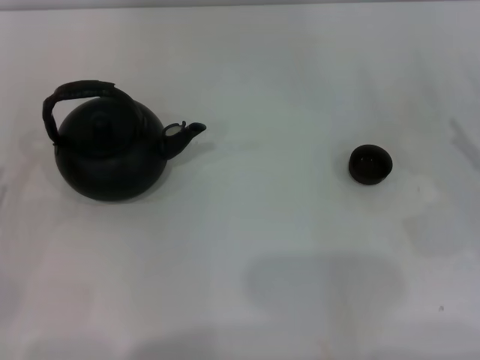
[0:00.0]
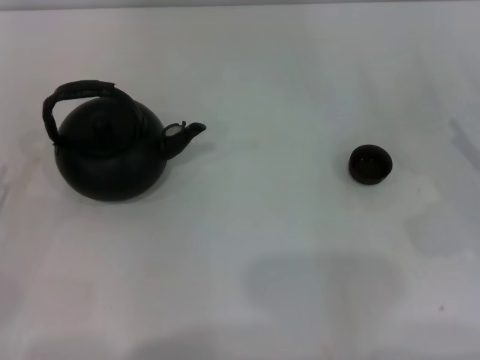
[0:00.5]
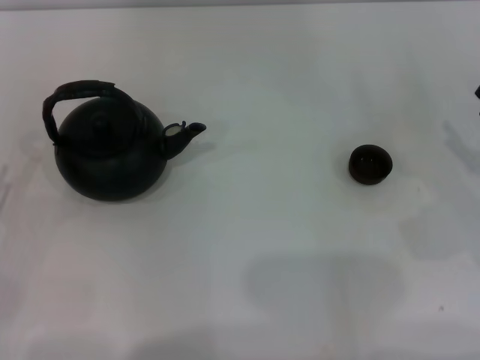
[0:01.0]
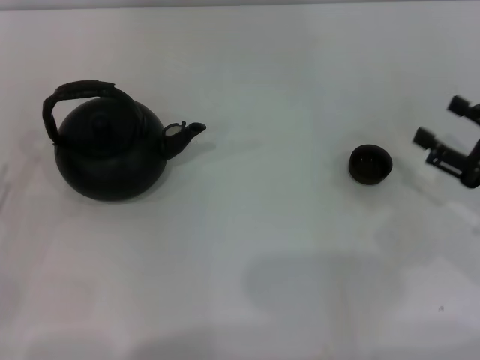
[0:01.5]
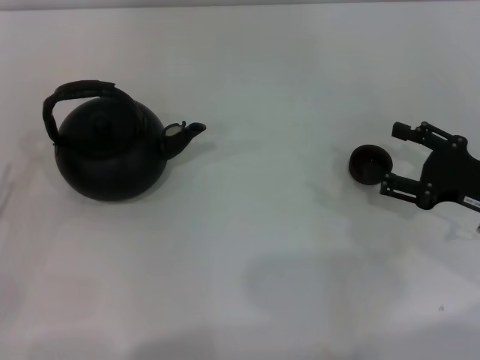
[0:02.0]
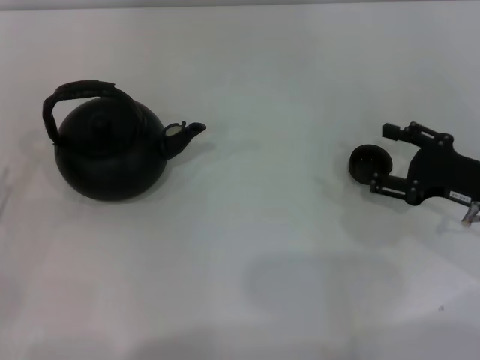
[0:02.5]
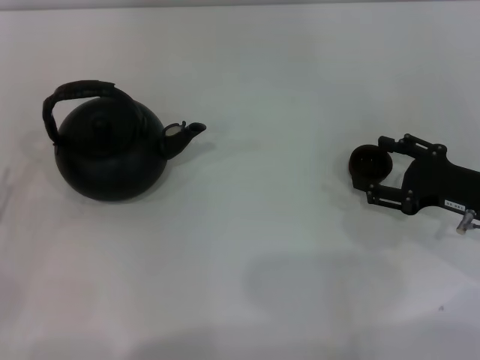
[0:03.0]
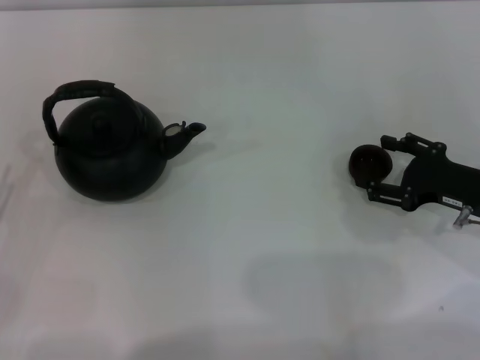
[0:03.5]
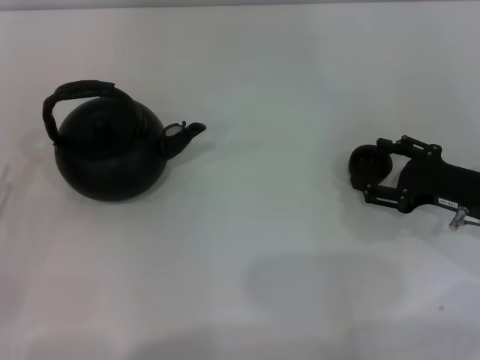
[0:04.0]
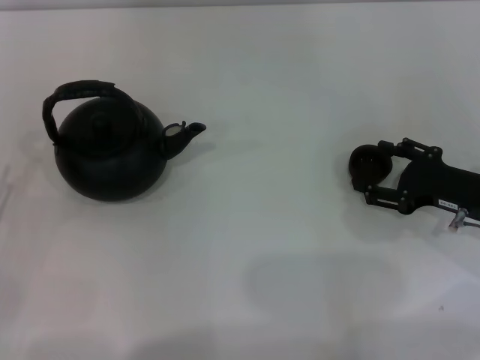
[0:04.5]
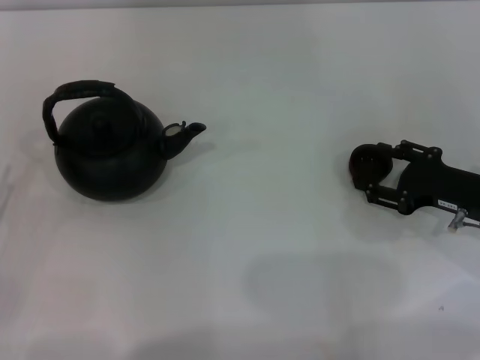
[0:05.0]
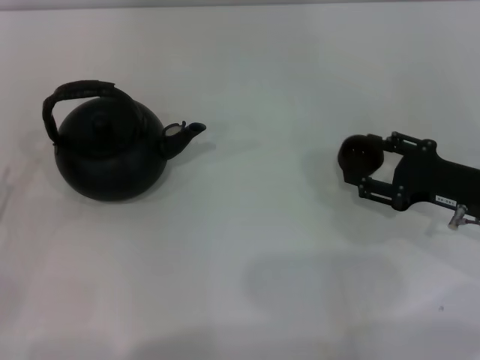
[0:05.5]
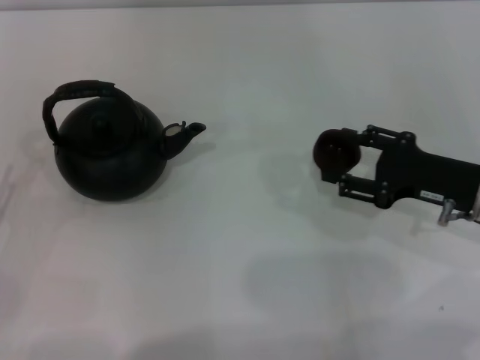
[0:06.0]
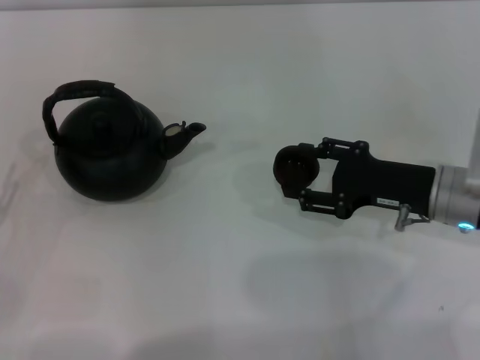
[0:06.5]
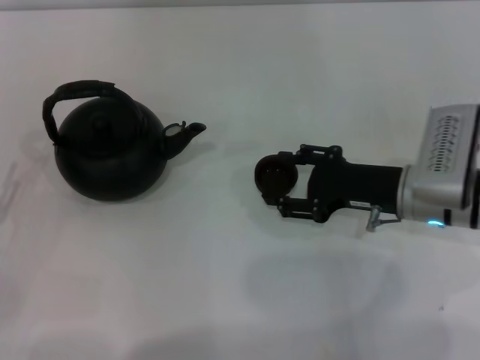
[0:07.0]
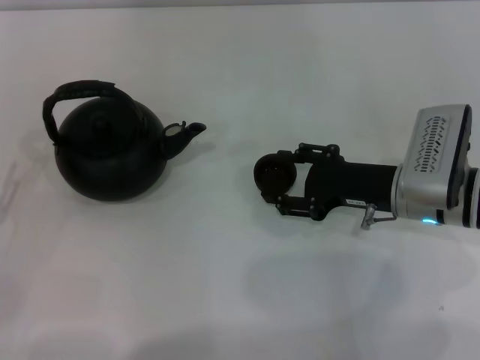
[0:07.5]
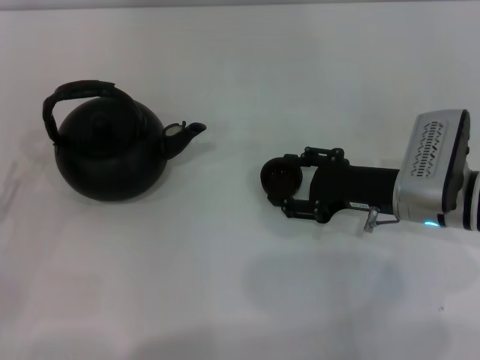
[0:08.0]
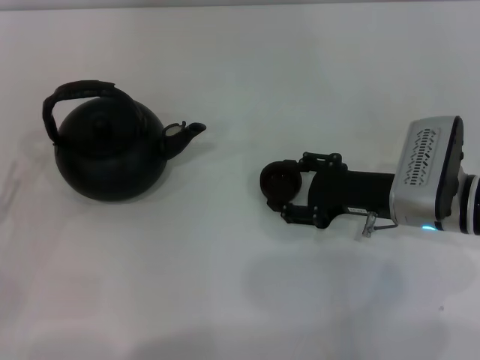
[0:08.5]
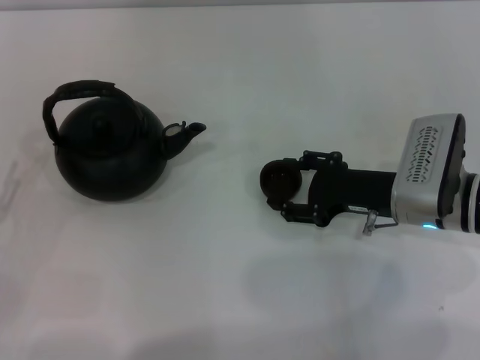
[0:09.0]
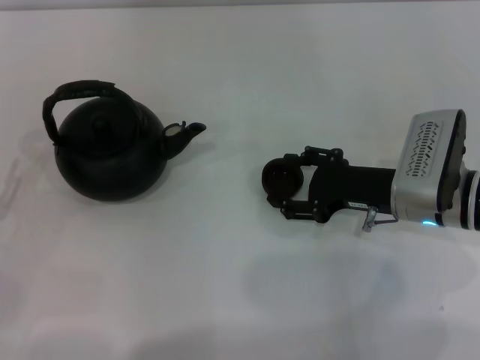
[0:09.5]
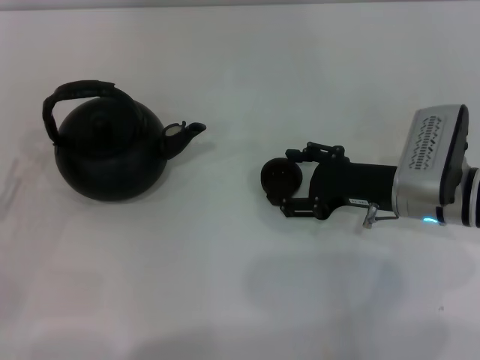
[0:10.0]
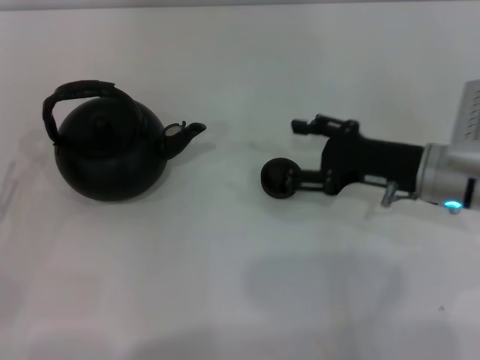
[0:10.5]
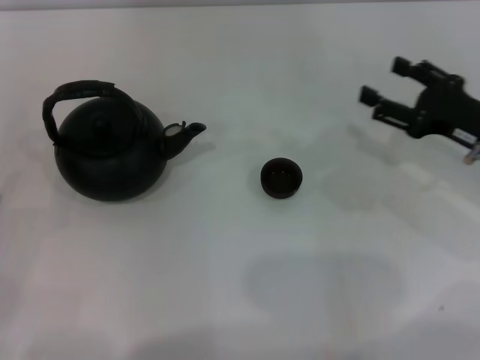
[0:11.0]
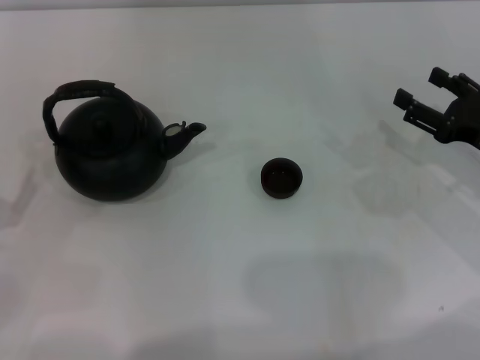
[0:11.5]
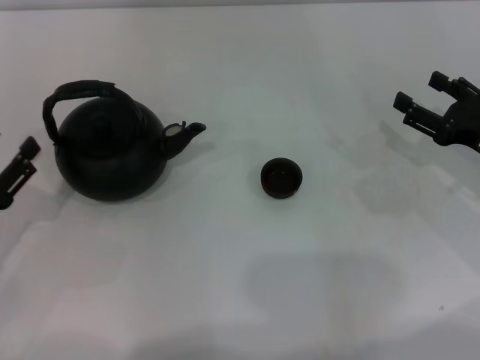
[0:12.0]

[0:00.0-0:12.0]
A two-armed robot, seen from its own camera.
Task of the whole recording: Grasp the handle of the teapot with one hand and pour tea into the teacup.
Step, 0:00.0 to 0:05.5: Pick up the teacup with the right gripper.
Step, 0:06.0 to 0:10.5: Place the teacup in the center of view with the right gripper.
0:00.0 to 0:02.0: The right gripper moves approximately 5 cm.
0:02.0 to 0:04.0: The grippers make only small movements.
0:04.0 to 0:06.0: The right gripper closes its fingers.
0:06.0 to 0:08.0: The right gripper is displaced to the left by approximately 5 cm.
0:08.0 to 0:10.0: The right gripper opens up.
0:10.0 to 0:12.0: The right gripper moves to the right, approximately 10 cm.

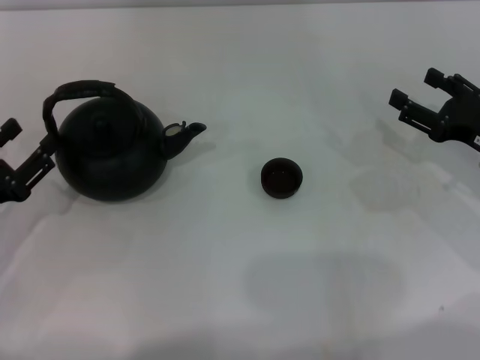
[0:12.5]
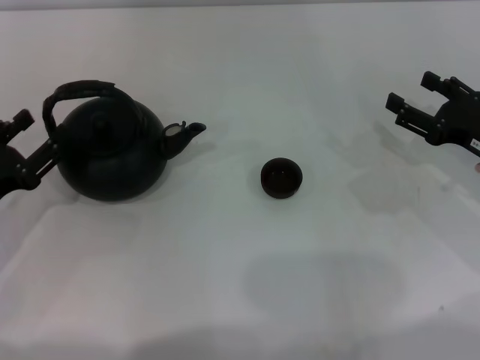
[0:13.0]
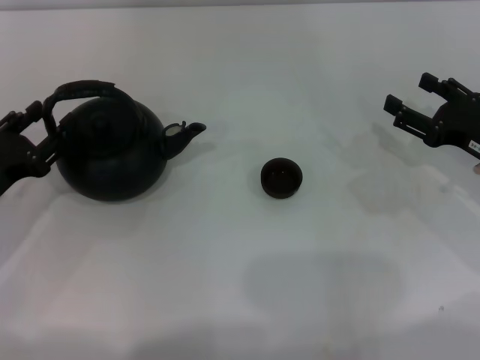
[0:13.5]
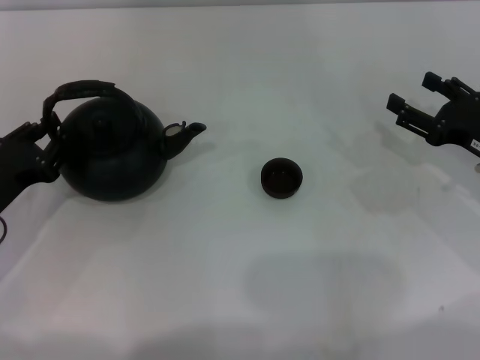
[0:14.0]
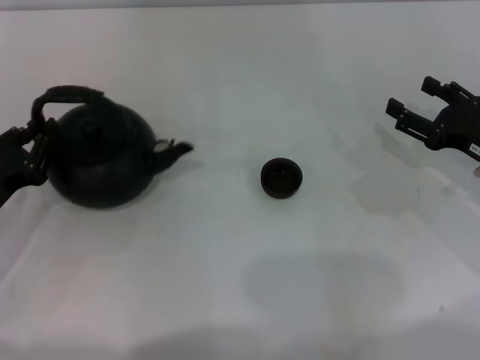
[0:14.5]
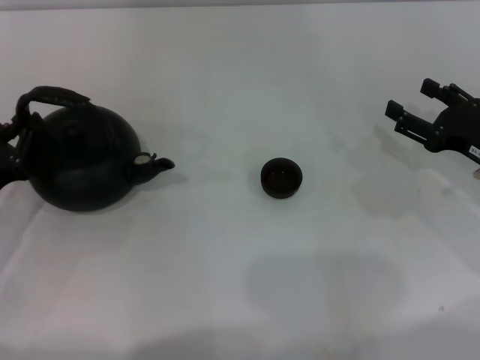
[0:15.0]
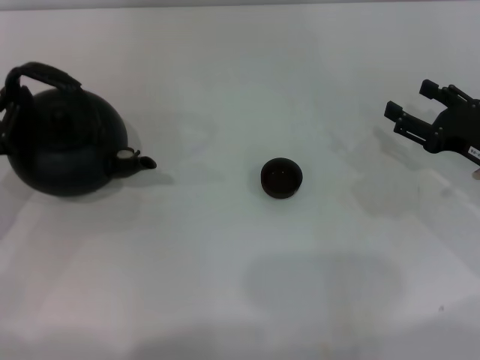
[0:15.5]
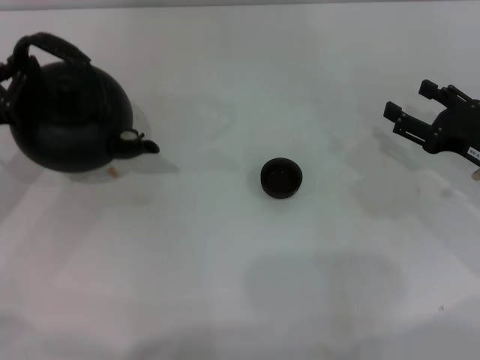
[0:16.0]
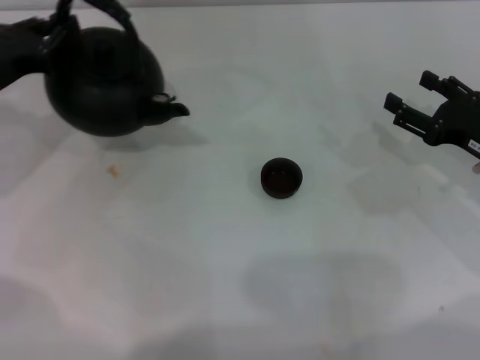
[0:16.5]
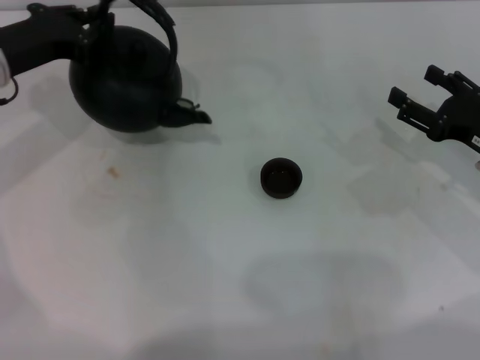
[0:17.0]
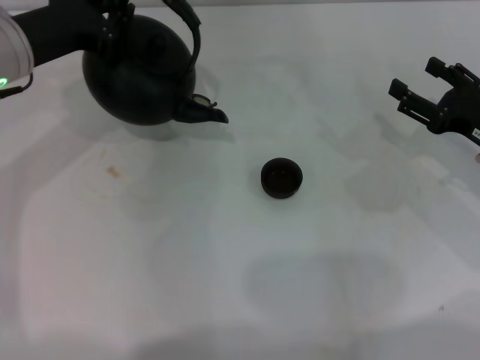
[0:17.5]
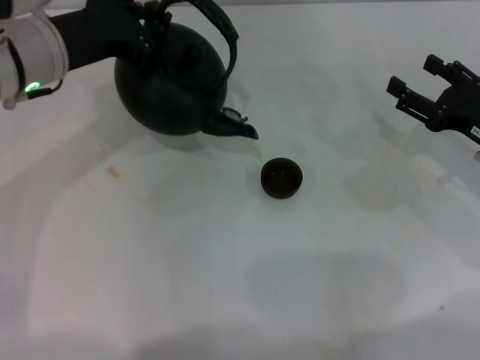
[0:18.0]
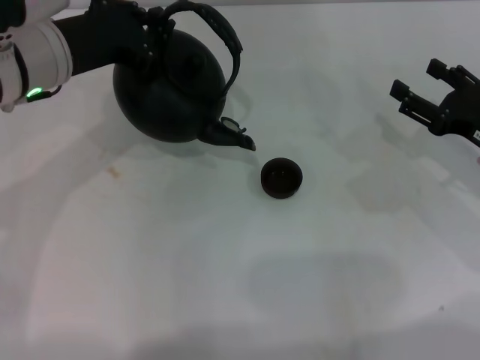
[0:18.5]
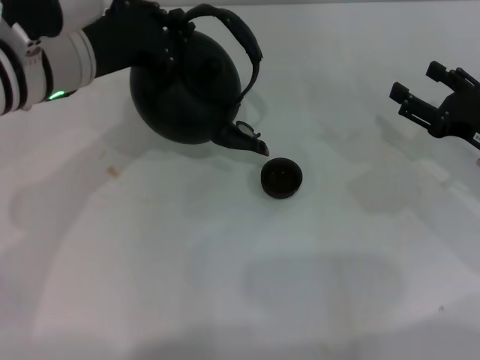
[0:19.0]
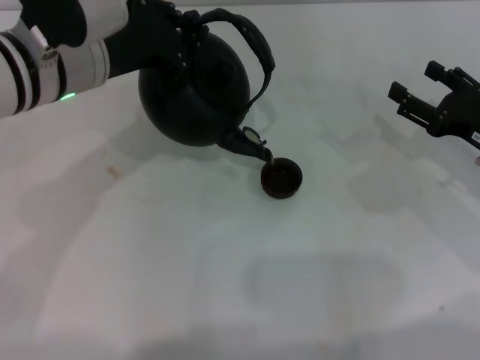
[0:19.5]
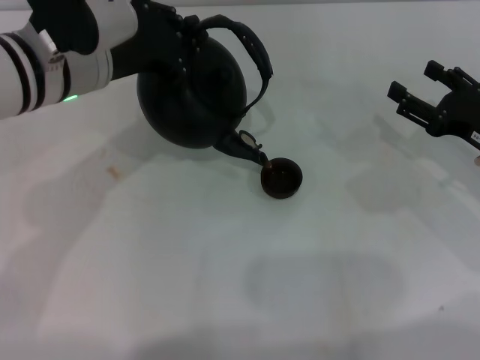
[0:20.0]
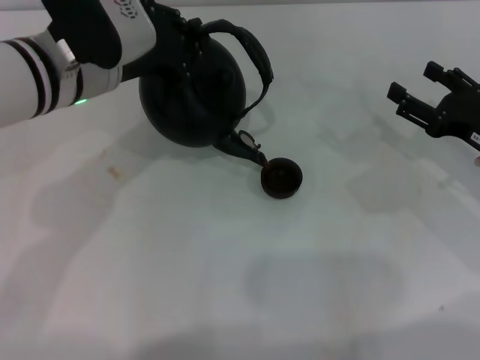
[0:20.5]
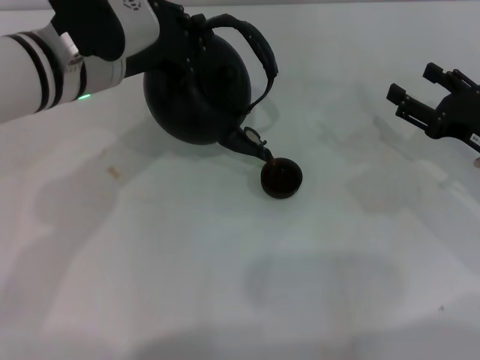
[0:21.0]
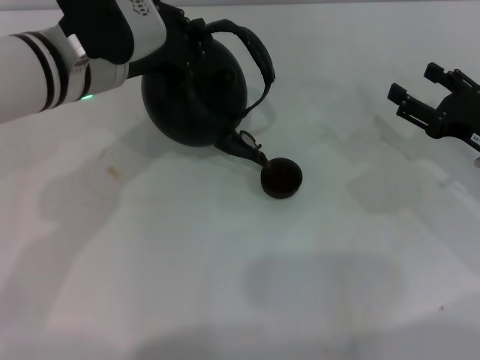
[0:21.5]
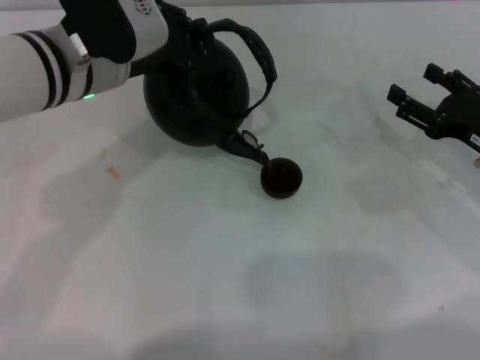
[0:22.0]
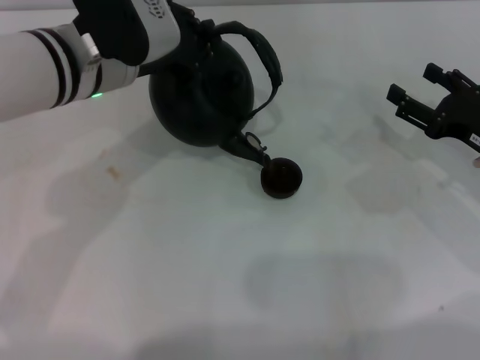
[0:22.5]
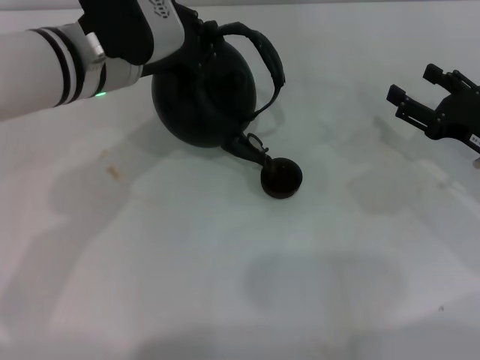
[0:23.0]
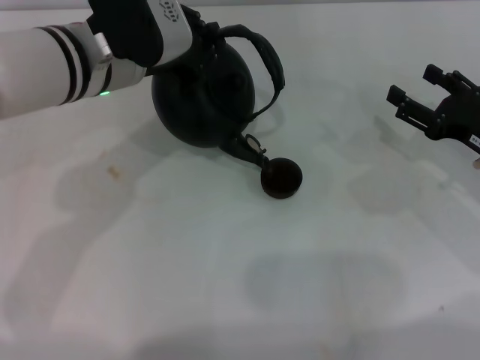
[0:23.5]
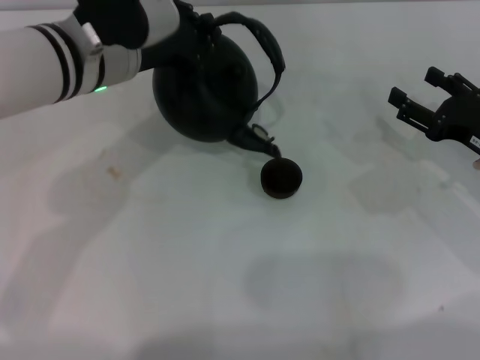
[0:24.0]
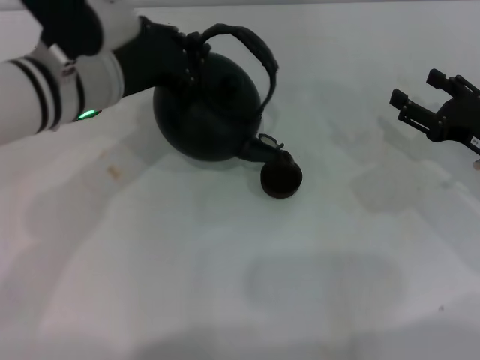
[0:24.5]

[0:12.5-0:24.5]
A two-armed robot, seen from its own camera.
Task of the whole recording: Grasp the handle of the teapot with one hand and pour tea into the teacup.
Step, 0:12.5 to 0:15.5: Pick up the teapot with the left gripper.
Step, 0:16.0 to 0:24.0: Pour tea into the teacup with the left gripper.
0:12.5 to 0:14.5: The left gripper closes up.
0:14.5 to 0:16.5: The left gripper shifts some 15 cm forward and upward.
0:16.5 to 0:18.5: The left gripper moves to the right and upward, approximately 10 cm.
0:18.5 to 0:20.5: The grippers move only a little.
0:20.5 to 0:24.5: The grippers stay close to where they were, moving slightly.

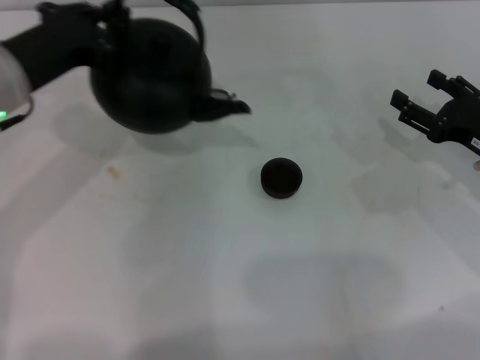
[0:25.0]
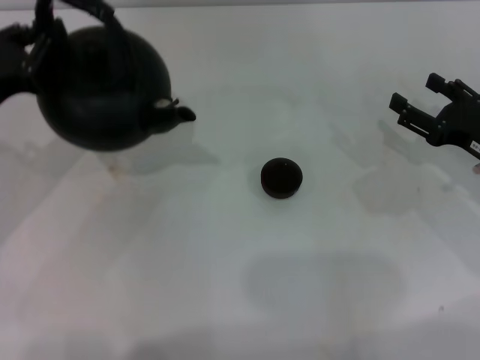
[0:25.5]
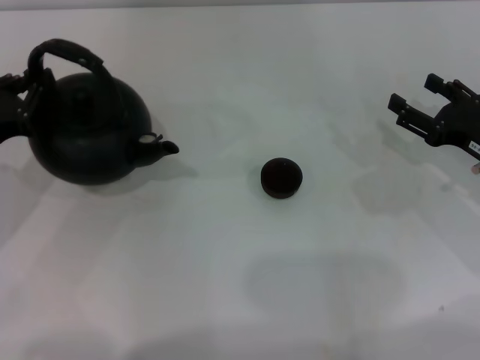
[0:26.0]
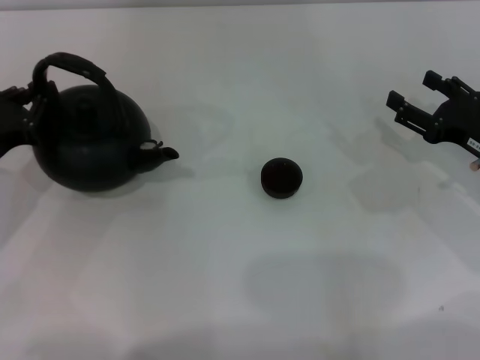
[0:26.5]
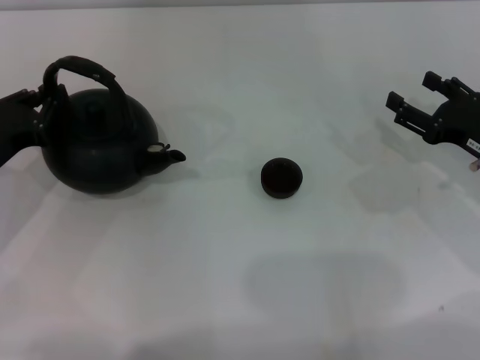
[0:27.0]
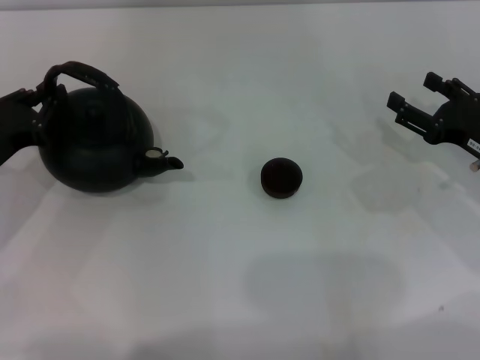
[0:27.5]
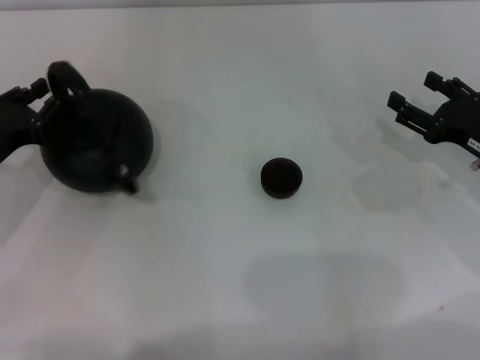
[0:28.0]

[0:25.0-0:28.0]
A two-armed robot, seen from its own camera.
Task of the whole recording: Grasp the handle of the teapot with one hand and pour tea into the teacup.
0:25.0 to 0:26.5: The left gripper heads downward and to the left, covering about 10 cm.
0:26.5 to 0:28.0: Both grippers stay about where they are.
